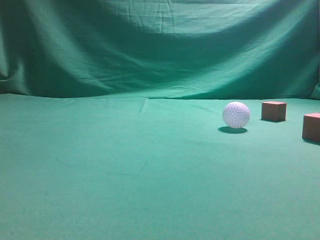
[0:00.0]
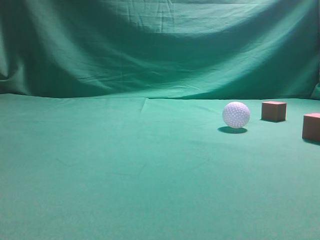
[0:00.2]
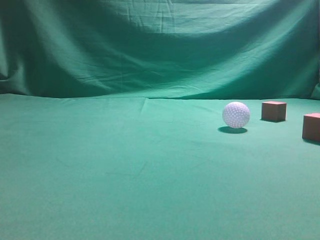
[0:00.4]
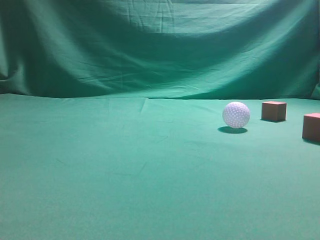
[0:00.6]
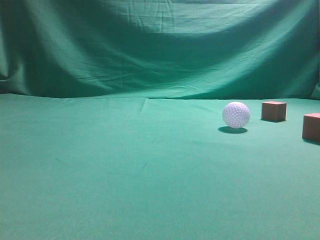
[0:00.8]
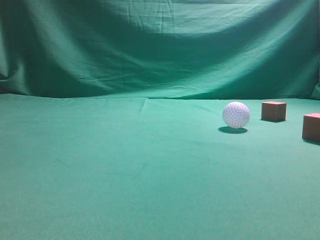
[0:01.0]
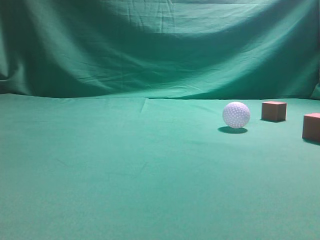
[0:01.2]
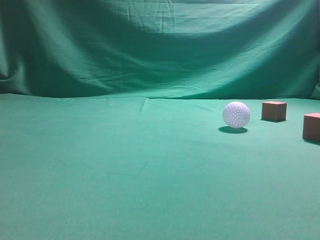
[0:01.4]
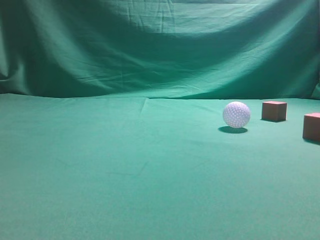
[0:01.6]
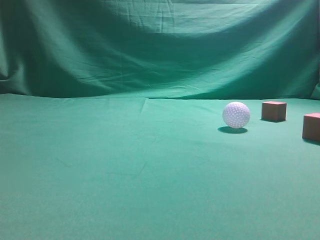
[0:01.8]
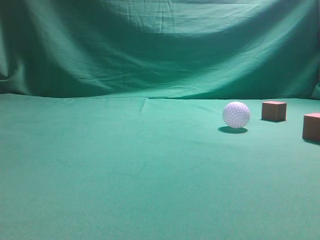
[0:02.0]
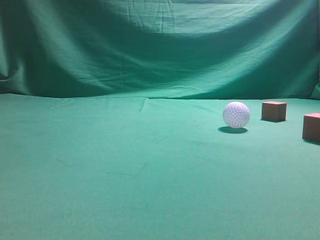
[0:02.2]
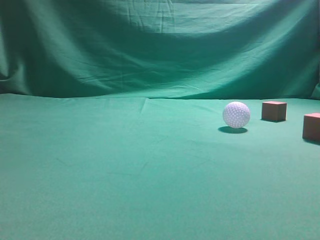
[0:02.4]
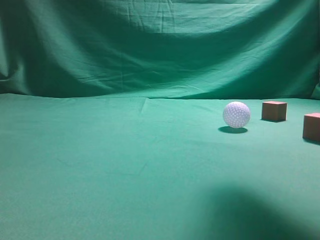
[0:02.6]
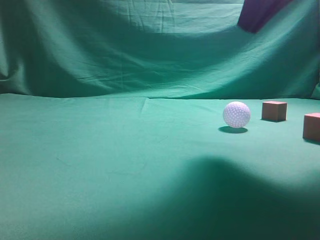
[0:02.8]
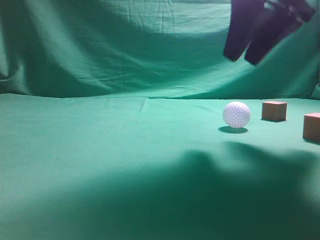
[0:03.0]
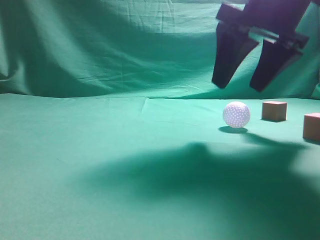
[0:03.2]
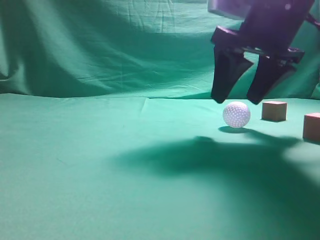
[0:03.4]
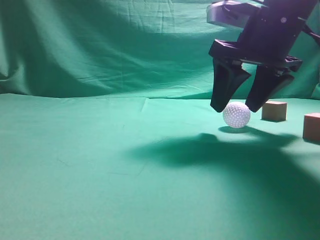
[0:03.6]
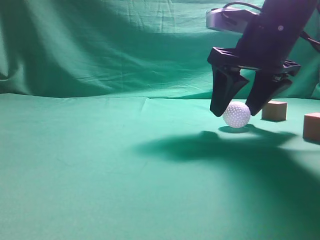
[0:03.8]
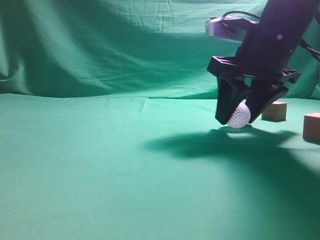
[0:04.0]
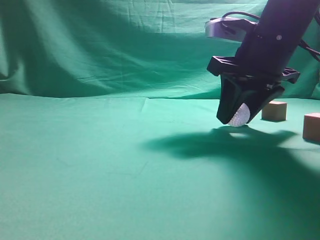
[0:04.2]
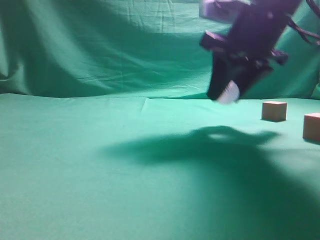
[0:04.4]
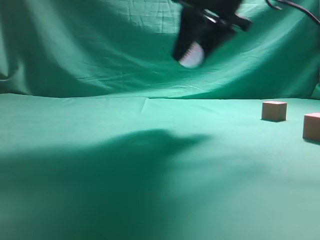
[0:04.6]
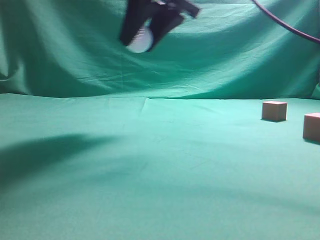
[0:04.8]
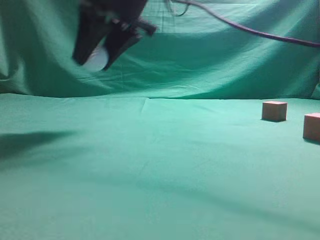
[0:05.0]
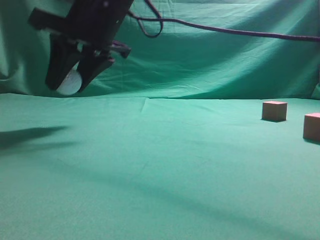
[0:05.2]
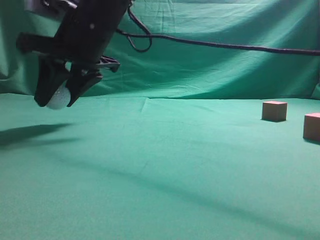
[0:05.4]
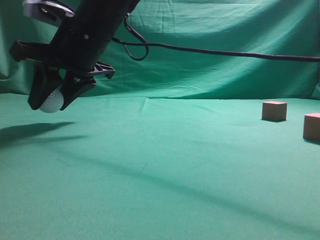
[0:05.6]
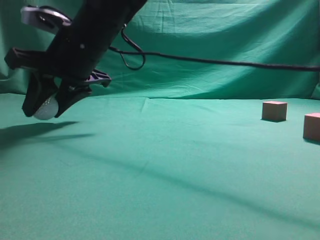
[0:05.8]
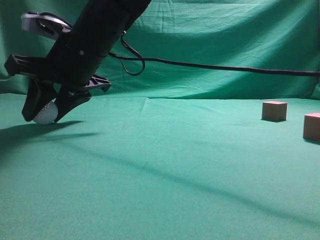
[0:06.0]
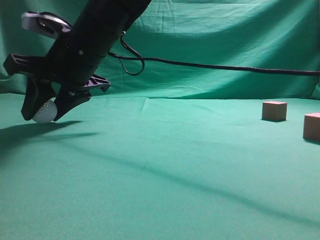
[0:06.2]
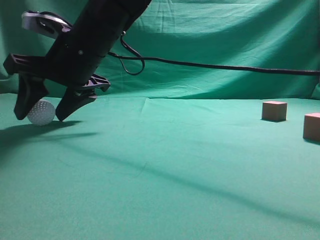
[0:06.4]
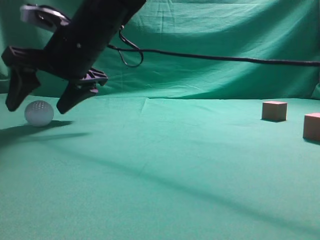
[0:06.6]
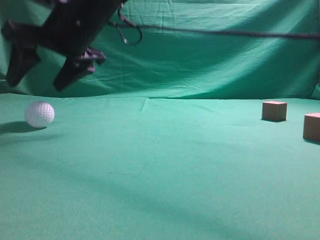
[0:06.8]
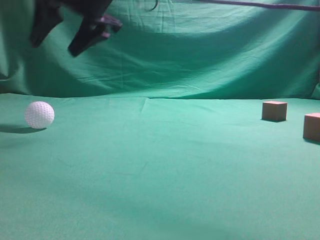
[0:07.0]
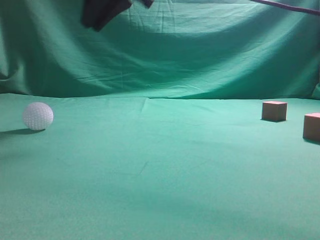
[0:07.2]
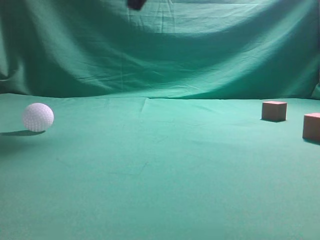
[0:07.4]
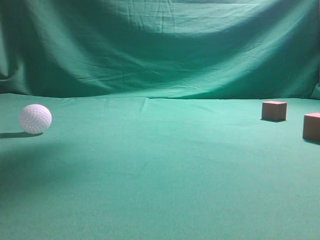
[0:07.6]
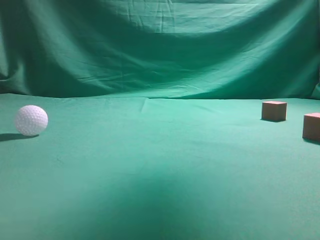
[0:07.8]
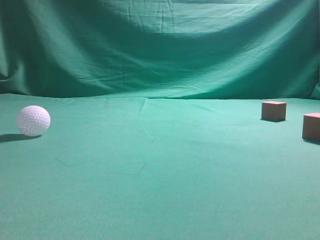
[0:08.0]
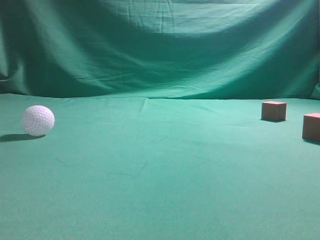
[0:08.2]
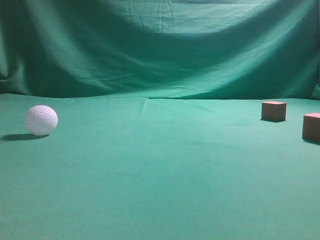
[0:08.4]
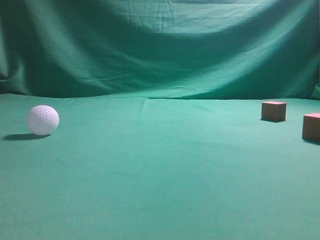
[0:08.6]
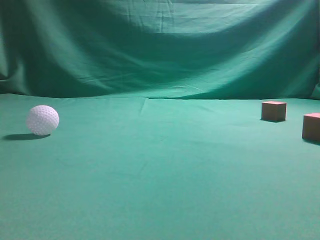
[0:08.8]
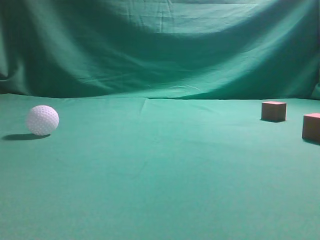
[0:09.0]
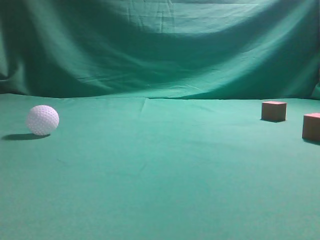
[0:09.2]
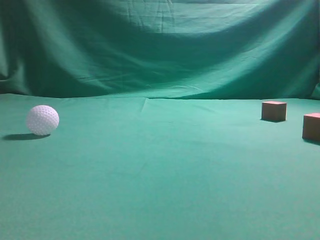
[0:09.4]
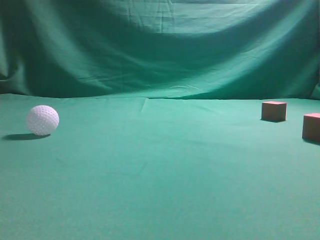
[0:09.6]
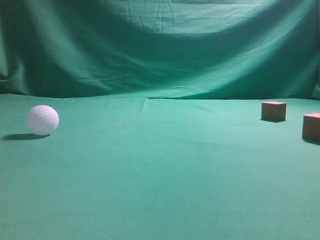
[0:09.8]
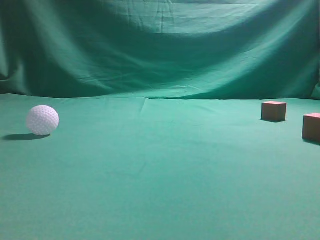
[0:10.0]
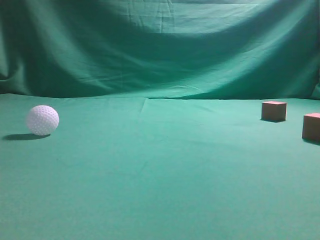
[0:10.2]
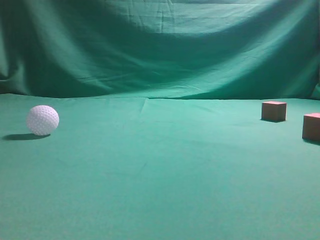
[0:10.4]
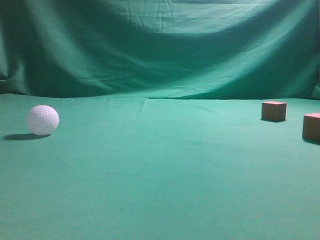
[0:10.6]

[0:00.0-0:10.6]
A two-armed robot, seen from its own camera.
Step, 0:00.0 to 0:04.4: Grasp the spherical object on the right side.
0:01.6 to 0:03.0: The right gripper is displaced forward and to the left by approximately 30 cm, and opens.
0:03.0 to 0:04.6: The right gripper heads to the left, covering some 5 cm, and reaches approximately 10 cm downward, then returns.
0:04.6 to 0:06.0: The right gripper shifts some 20 cm to the left and downward.
0:06.0 to 0:07.6: The right gripper goes roughly 30 cm upward and to the right, and closes up.
